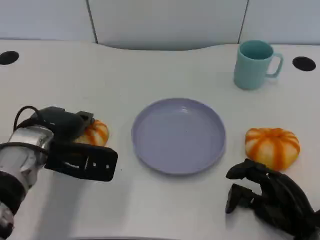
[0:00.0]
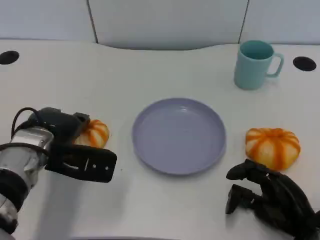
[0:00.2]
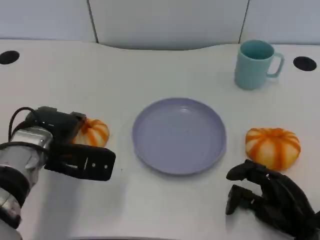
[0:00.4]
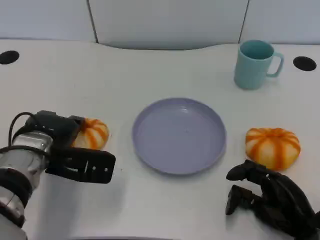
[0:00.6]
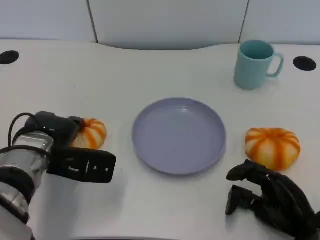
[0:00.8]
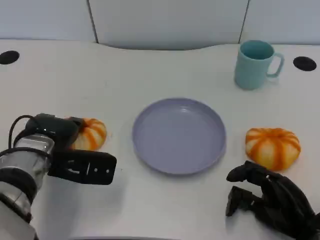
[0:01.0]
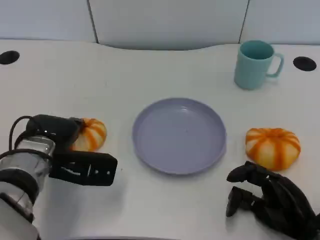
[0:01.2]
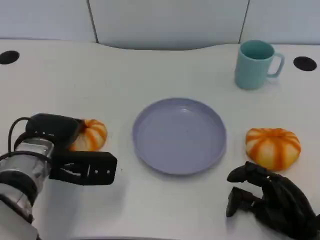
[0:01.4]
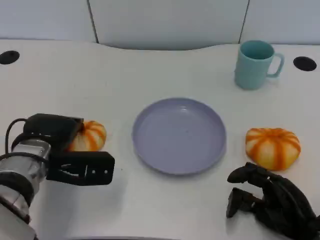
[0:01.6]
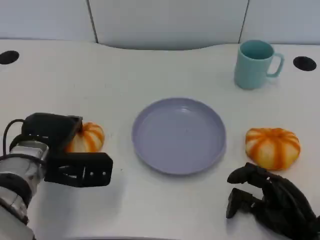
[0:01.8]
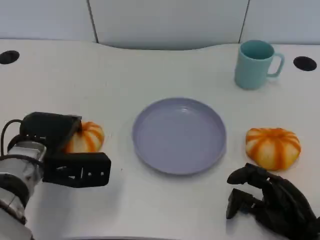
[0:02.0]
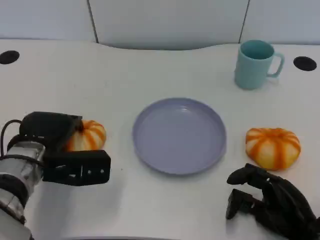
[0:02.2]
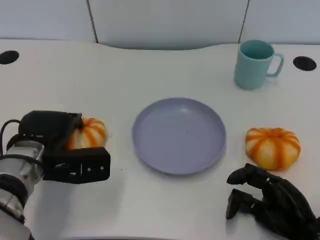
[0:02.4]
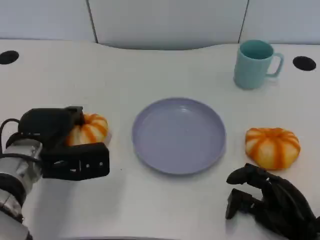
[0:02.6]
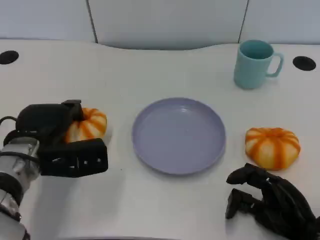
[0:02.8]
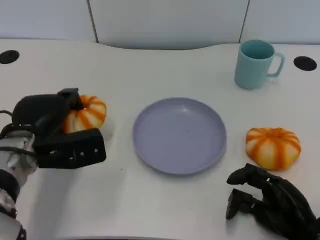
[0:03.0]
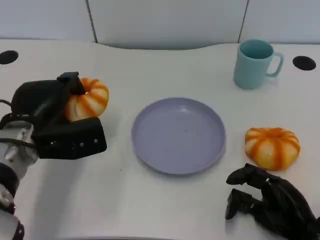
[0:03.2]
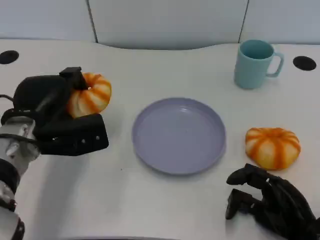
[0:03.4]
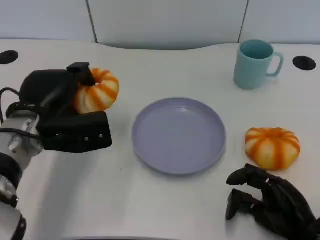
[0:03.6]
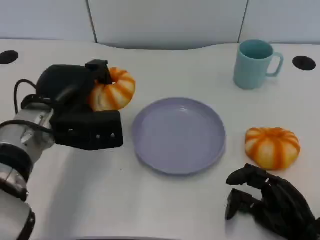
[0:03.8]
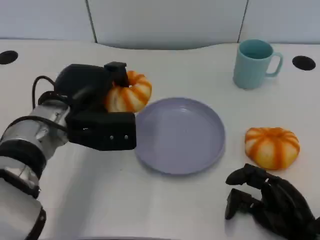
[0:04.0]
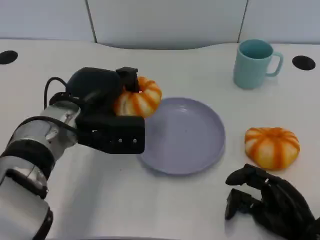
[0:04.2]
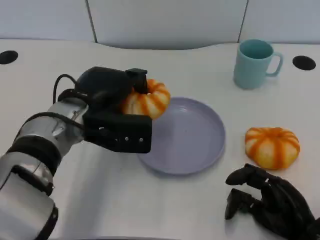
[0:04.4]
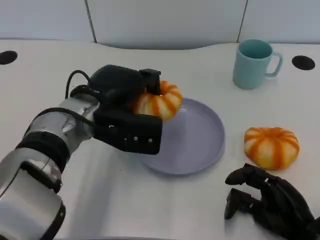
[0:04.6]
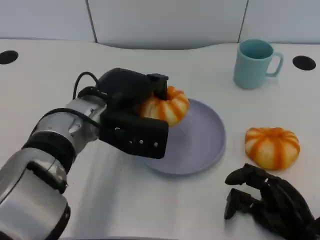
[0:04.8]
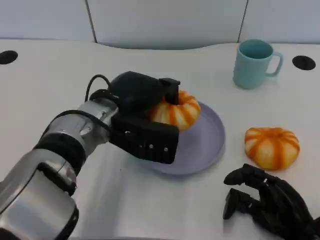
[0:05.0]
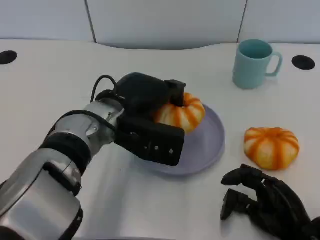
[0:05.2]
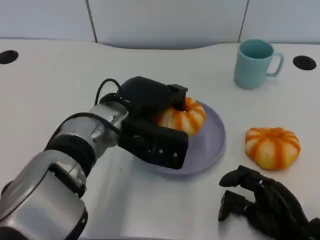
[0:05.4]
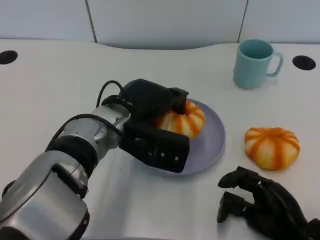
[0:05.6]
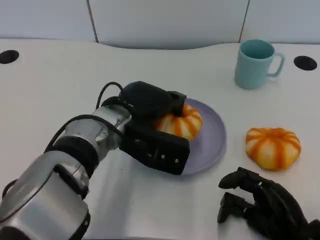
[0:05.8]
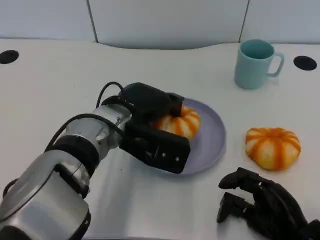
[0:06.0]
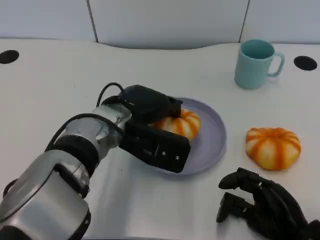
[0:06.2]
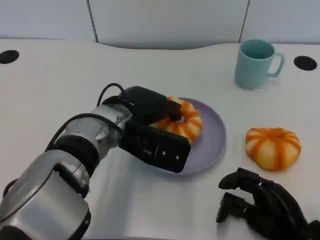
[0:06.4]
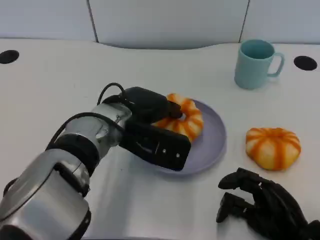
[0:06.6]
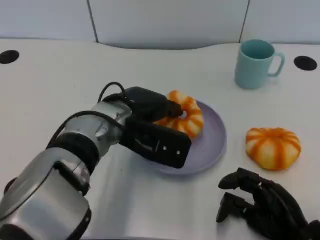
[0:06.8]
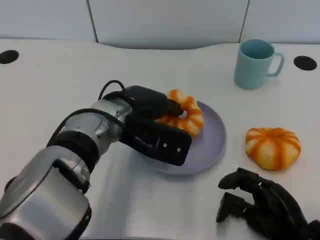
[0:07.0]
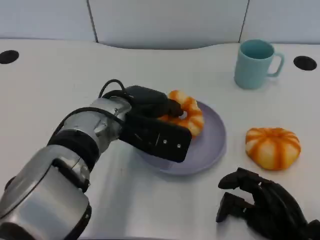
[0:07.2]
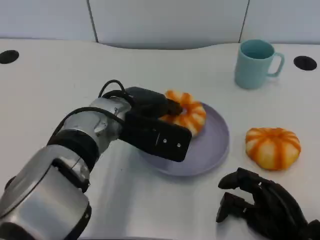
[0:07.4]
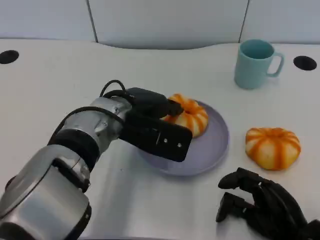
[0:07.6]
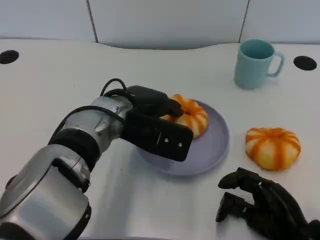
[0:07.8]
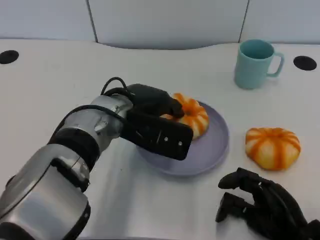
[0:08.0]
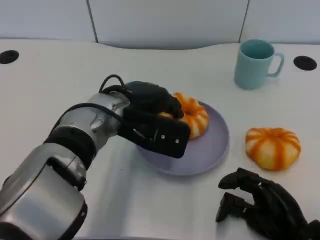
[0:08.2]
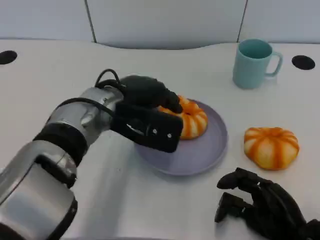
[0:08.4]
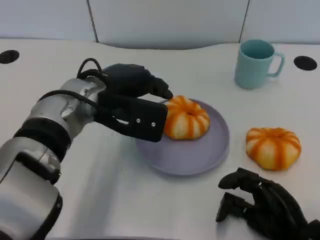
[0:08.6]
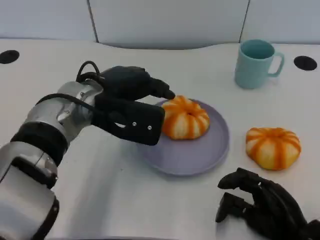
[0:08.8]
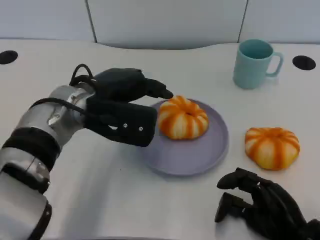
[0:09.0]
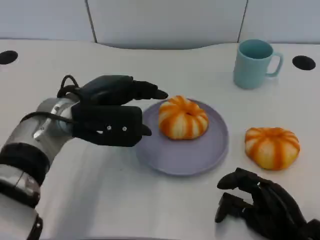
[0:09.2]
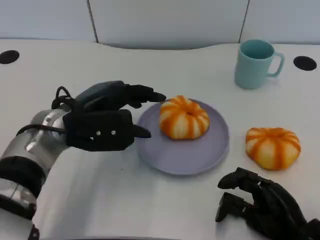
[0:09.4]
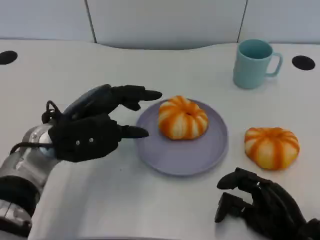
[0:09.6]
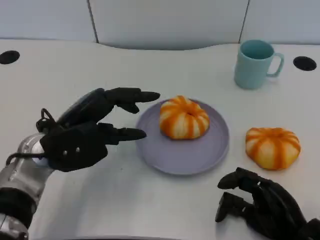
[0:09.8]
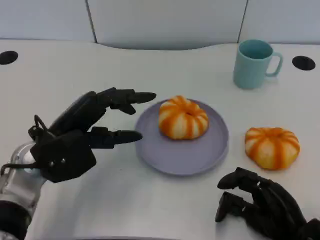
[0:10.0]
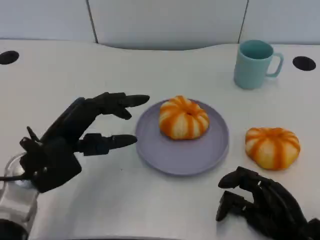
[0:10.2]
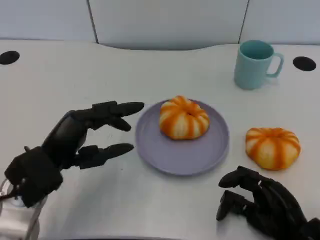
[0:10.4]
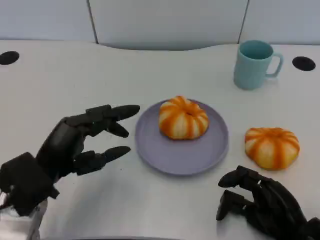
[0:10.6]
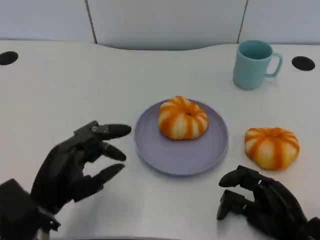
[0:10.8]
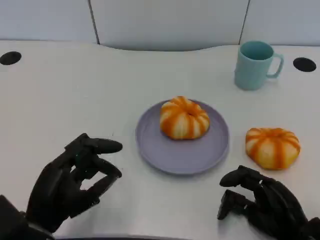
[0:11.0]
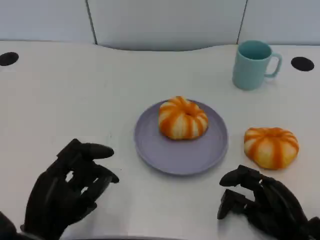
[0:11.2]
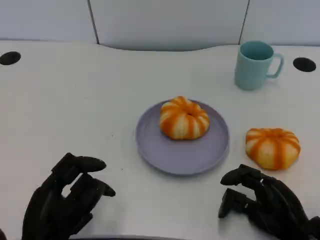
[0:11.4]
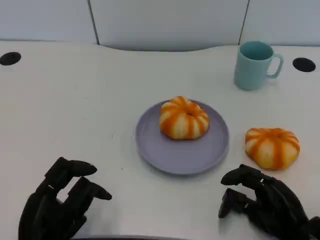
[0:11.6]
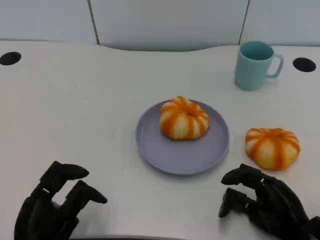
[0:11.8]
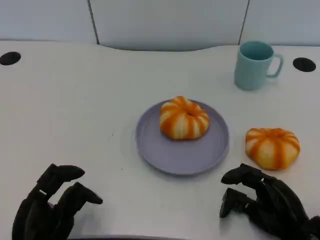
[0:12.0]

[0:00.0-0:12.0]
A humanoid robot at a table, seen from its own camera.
Task of the whole recording: Grasp the bread from the table and place it into the plate.
0:00.0 to 0:01.6: The hands stay close to where they were, moving slightly.
0:03.0 to 0:04.4: The left hand travels to the right by some 10 cm.
0:04.4 to 0:06.0: The left hand is displaced to the right by approximately 5 cm.
0:06.0 to 0:07.6: There are only small adjustments of the hands.
0:07.6 to 0:09.0: The left hand shifts some 5 cm to the left.
0:09.0 to 0:10.4: The left hand goes about 15 cm backward, to the left and downward.
0:10.4 to 0:12.0: The left hand goes some 10 cm backward and downward.

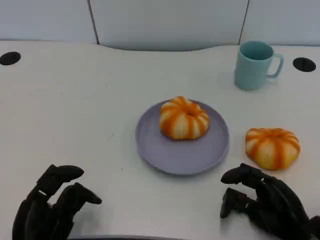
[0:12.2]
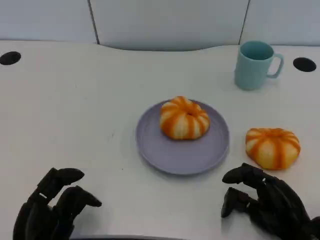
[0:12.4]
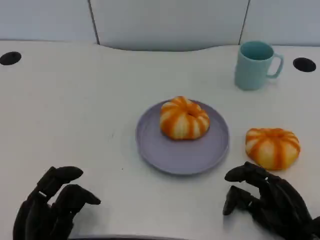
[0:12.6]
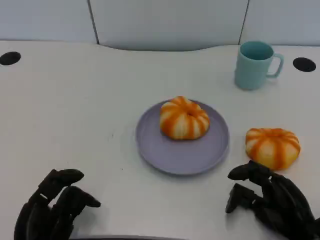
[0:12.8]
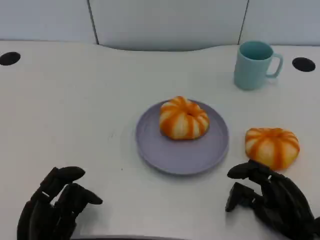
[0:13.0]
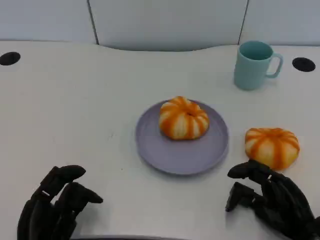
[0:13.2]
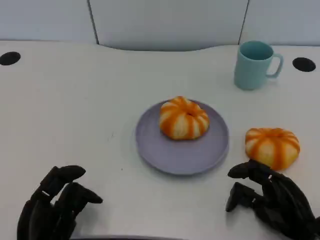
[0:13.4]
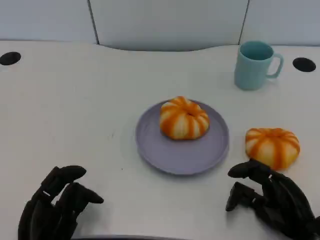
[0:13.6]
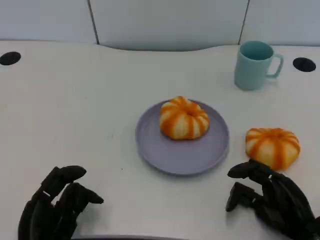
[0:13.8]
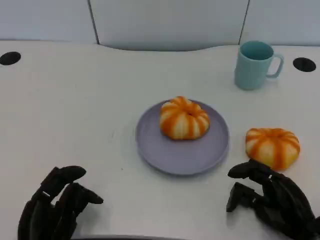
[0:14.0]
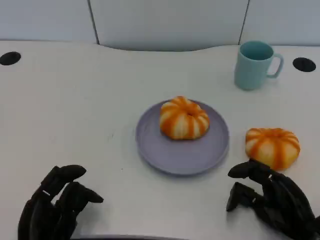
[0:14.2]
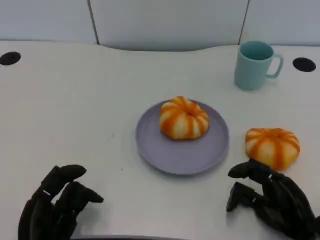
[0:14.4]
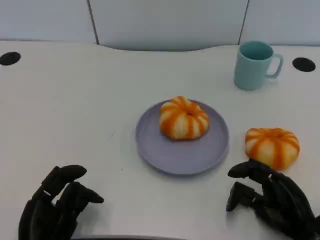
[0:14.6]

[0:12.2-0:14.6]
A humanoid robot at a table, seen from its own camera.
Task of the whole recording: Grasp the bread from the table and place it into the plate.
0:12.2 to 0:14.6: The two hands keep their place.

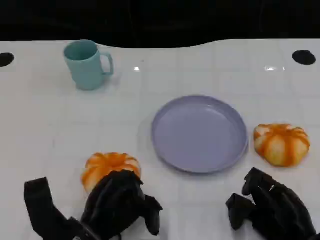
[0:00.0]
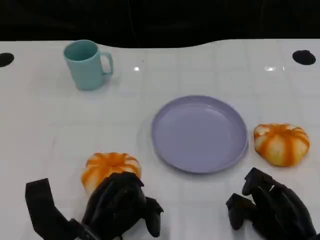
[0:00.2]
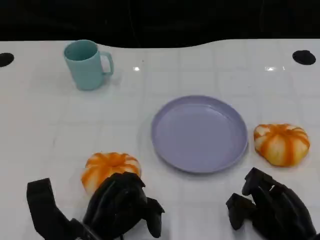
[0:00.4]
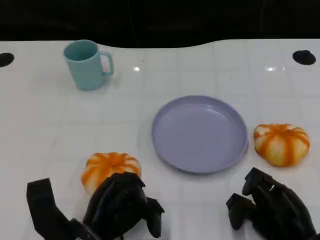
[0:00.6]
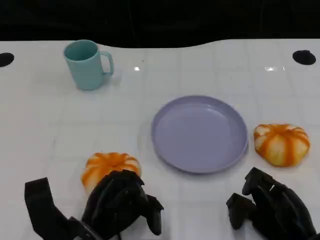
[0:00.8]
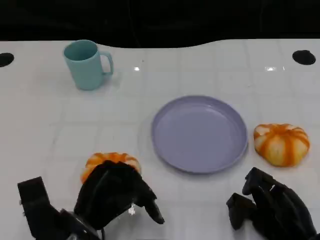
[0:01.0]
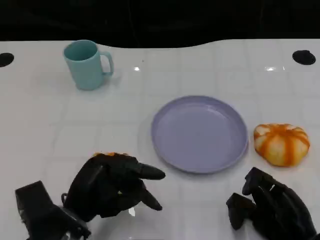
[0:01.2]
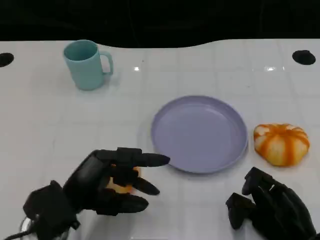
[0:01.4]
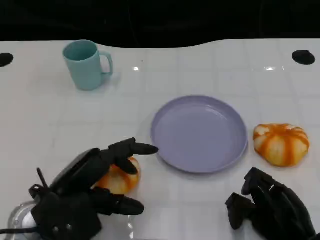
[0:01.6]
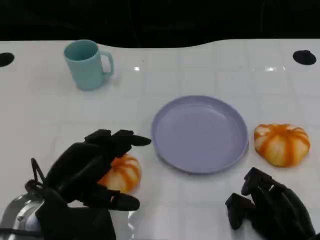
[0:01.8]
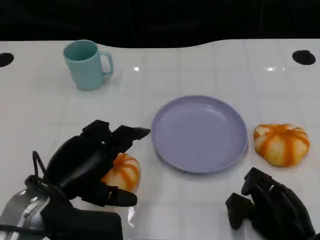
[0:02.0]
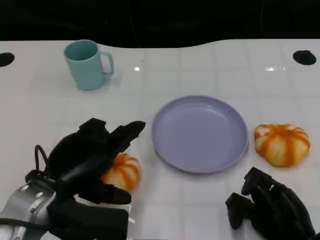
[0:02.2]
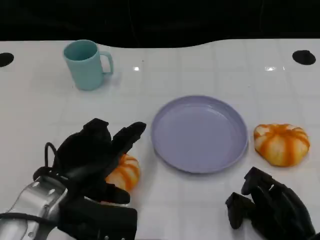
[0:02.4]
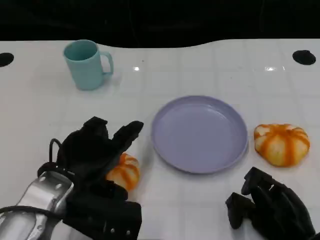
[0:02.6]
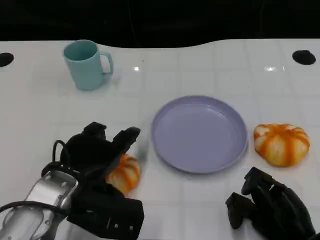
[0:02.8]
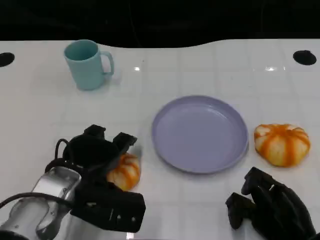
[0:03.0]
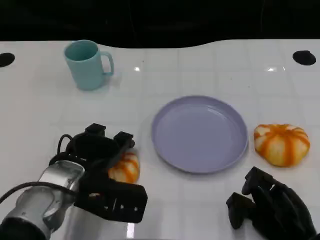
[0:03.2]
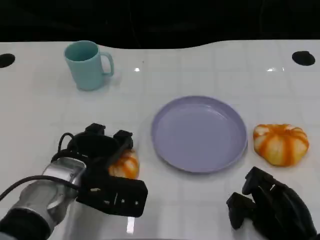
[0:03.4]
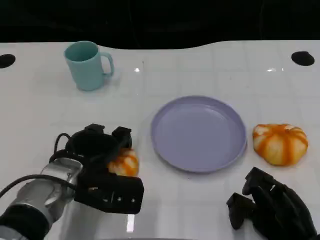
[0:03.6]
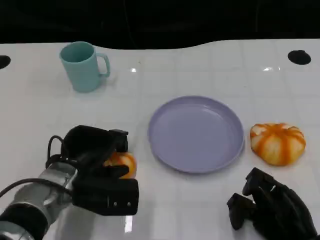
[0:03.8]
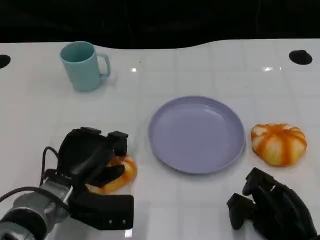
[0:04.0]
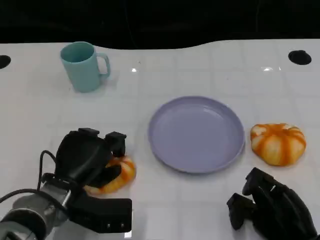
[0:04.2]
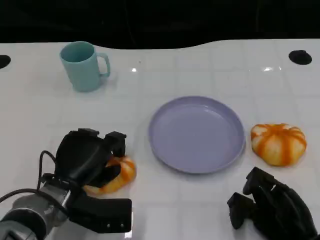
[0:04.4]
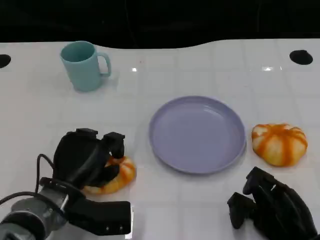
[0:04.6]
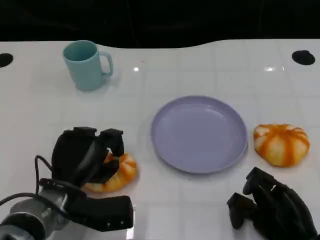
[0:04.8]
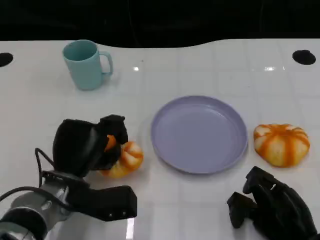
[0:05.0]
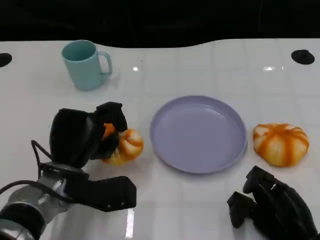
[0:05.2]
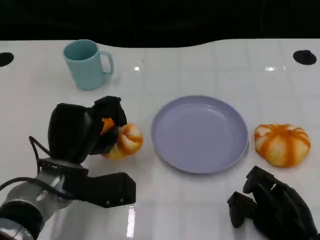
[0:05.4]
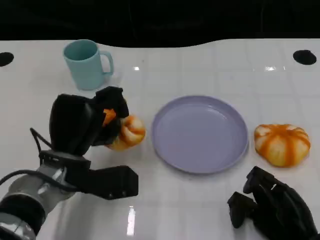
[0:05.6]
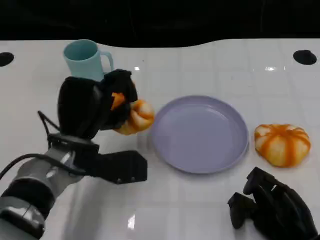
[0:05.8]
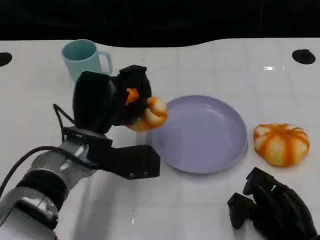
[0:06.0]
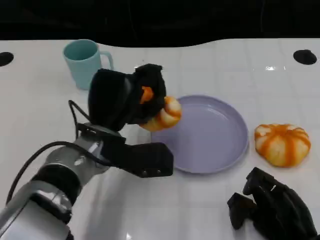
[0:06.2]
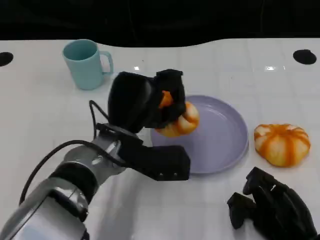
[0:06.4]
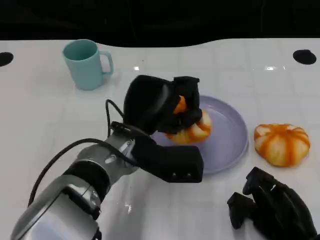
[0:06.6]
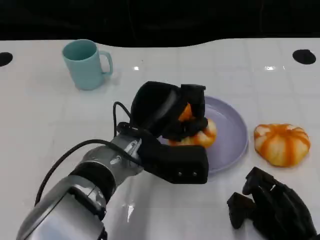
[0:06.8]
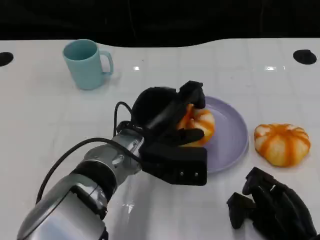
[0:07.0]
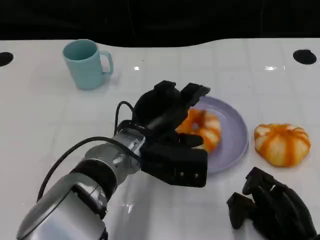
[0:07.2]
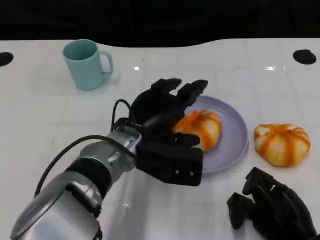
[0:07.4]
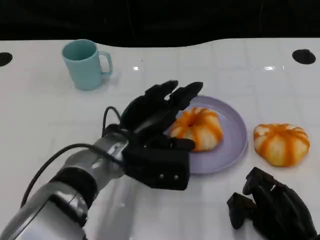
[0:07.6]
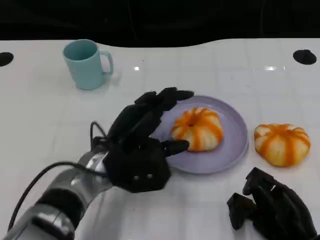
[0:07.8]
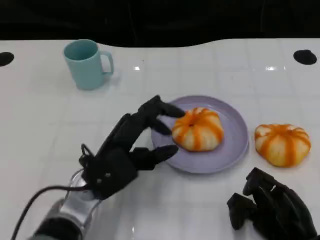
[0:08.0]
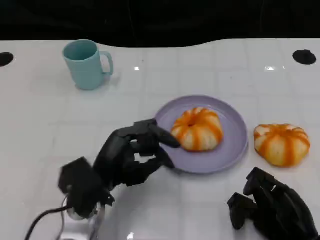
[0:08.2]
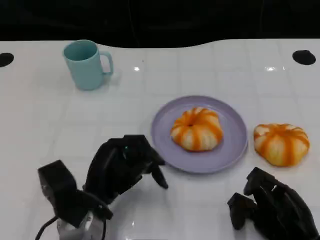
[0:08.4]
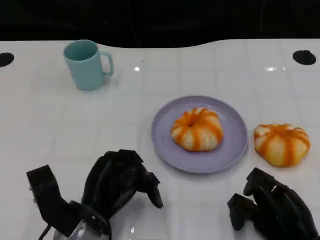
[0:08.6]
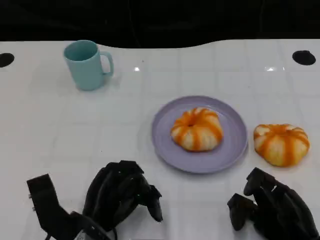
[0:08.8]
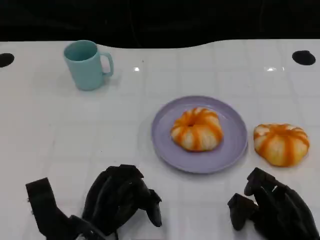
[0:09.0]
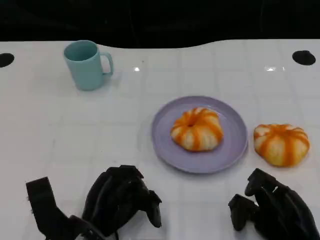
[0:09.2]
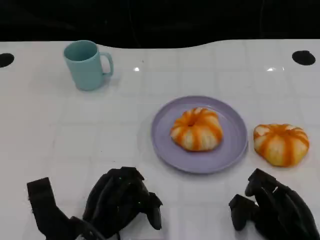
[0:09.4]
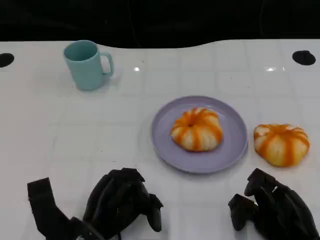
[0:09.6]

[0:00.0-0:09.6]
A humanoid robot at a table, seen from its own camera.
Task of the whole recording: Grasp the bread from the table and place it into the plate.
0:00.0 to 0:01.6: The left hand goes some 5 cm upward.
0:01.6 to 0:03.2: The left hand goes some 5 cm forward.
0:03.2 to 0:04.8: The left hand is displaced downward by roughly 5 cm.
0:04.8 to 0:06.4: The left hand is displaced to the right and upward by roughly 10 cm.
0:06.4 to 0:08.0: The left hand ends up about 5 cm from where it was.
0:08.0 to 0:09.6: The left hand shifts approximately 5 cm backward.
